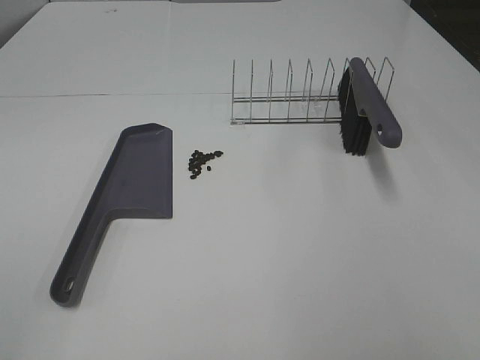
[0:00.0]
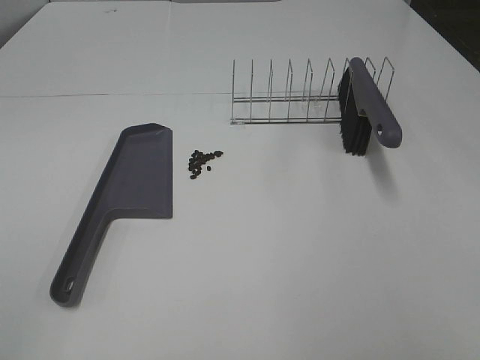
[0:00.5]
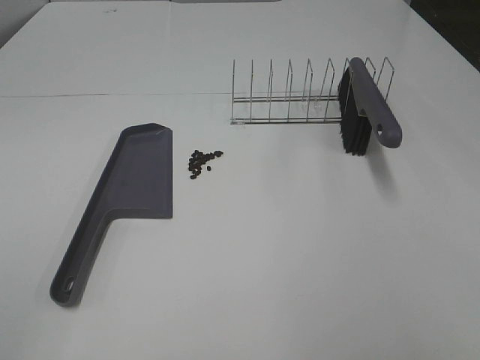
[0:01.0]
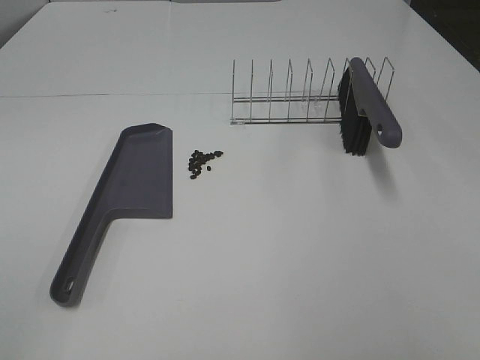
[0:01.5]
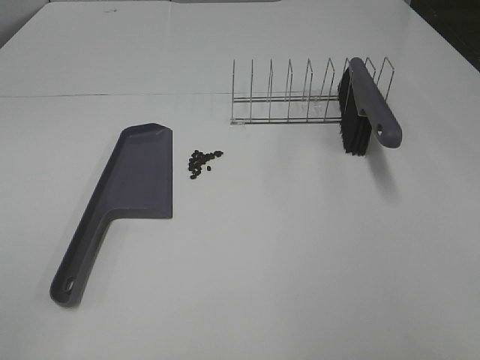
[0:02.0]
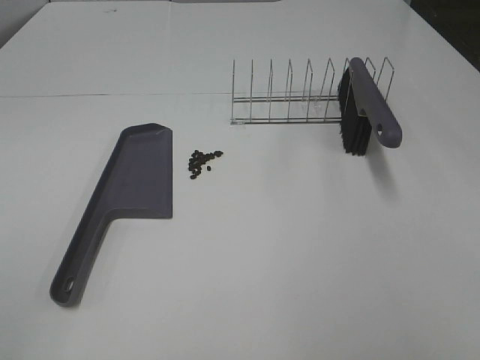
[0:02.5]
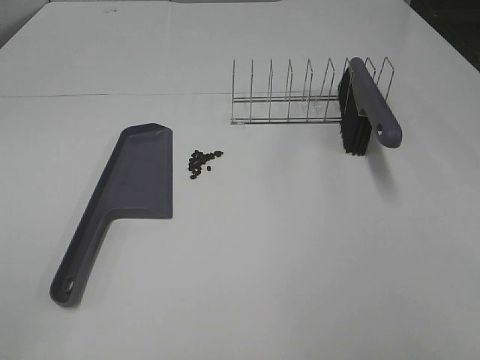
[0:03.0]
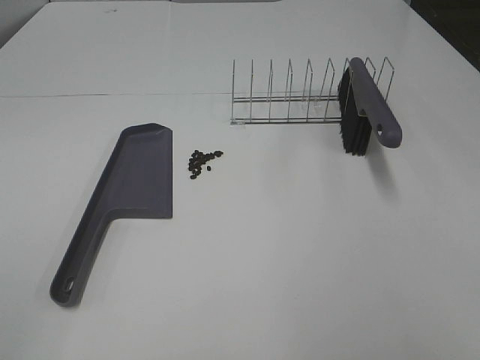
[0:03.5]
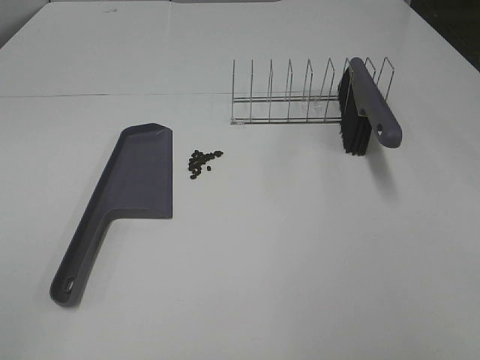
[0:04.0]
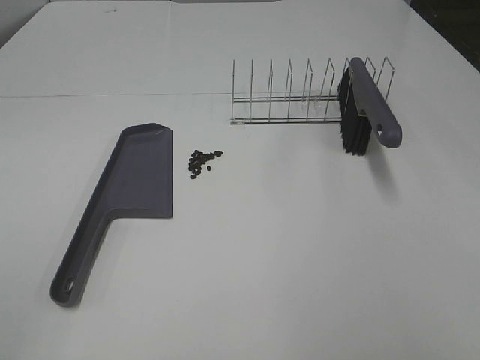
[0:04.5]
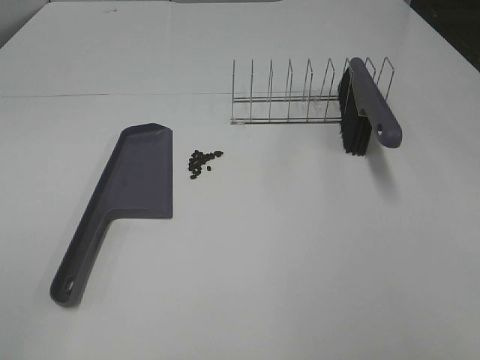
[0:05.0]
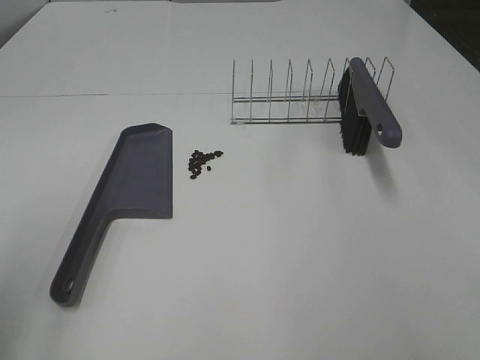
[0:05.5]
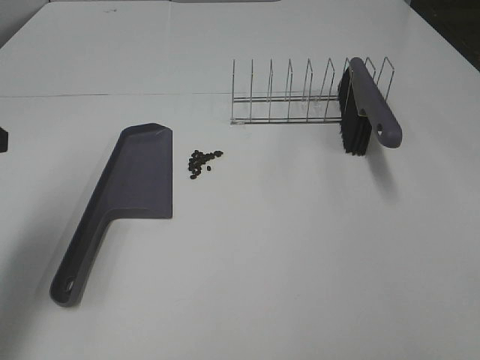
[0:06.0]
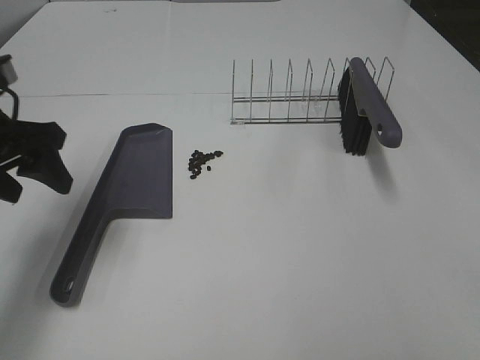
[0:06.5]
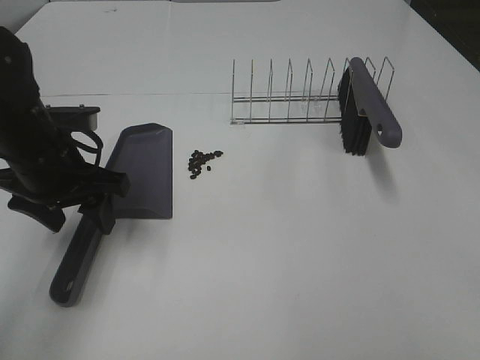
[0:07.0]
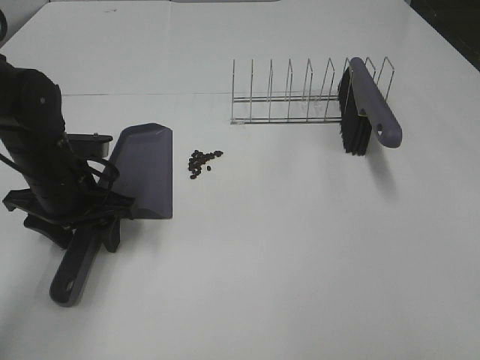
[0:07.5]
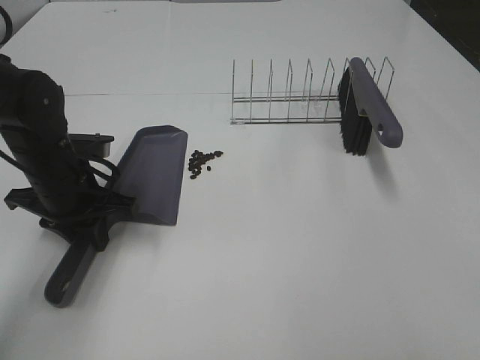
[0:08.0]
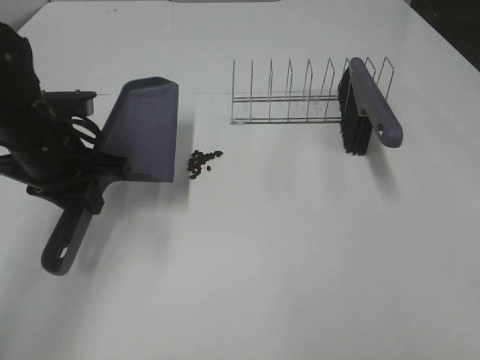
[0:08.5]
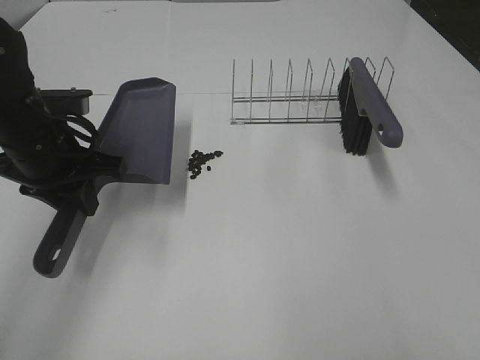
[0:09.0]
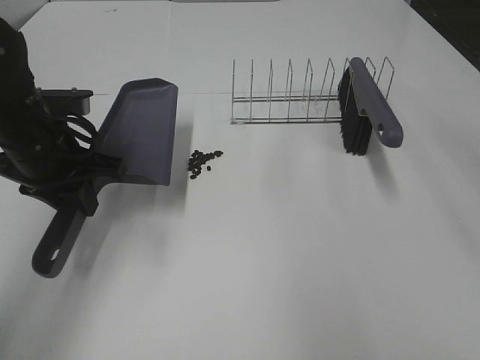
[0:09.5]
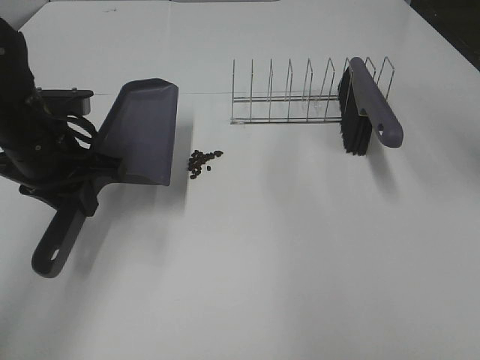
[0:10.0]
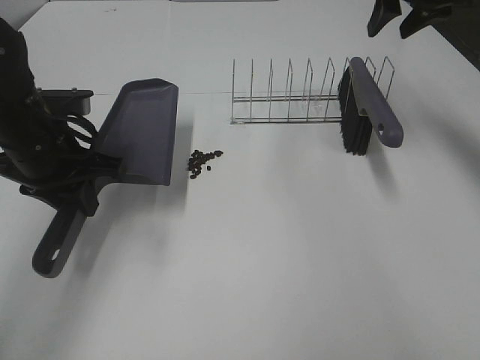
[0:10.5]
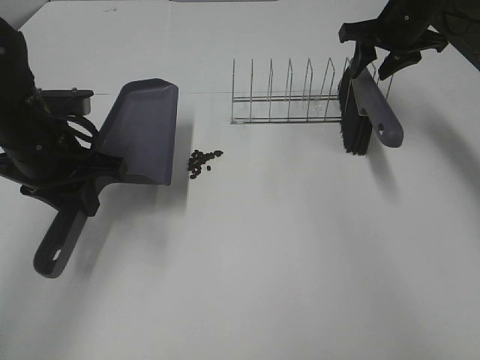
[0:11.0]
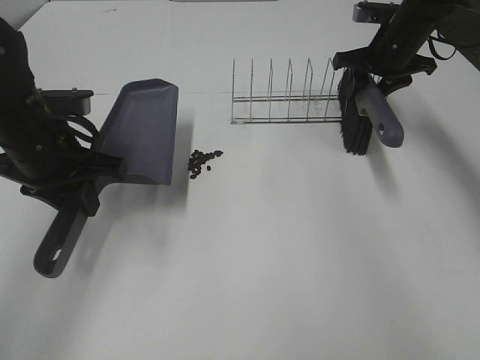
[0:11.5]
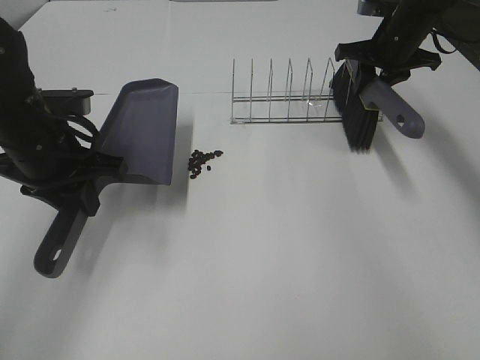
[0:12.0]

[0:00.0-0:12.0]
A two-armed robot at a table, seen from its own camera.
Task of the whole recording: Sweep Coffee Bean.
Step, 0:00.0 to 0:07.5: Left hand: grab the dustpan.
Step, 0:09.0 to 0:11.5: Right hand:grab the broom.
0:00.0 to 0:04.0: Both grippers stay about where they are.
0:04.0 to 0:06.0: The left gripper heads forward, covering roughly 25 cm.
0:06.0 to 0:08.0: The left gripper heads downward, forward and to the right, covering about 20 cm, and closes up.
0:08.0 to 0:10.0: The left gripper shifts some 5 cm upward; the right gripper shifts approximately 35 cm forward.
0:10.0 to 0:12.0: The right gripper heads downward and forward, covering about 25 cm, and closes.

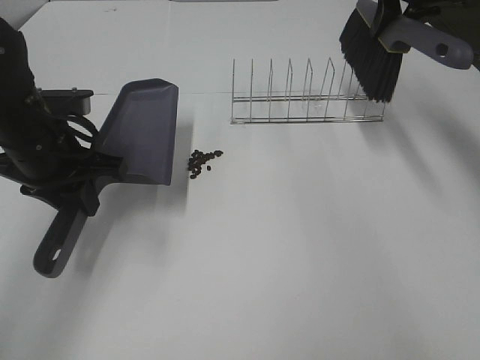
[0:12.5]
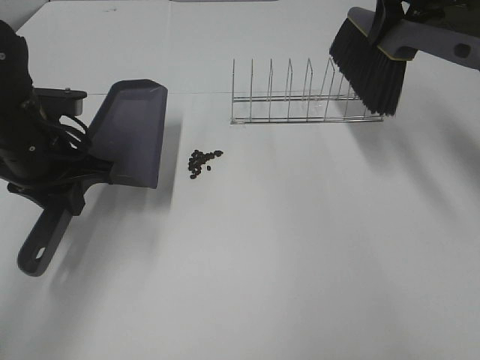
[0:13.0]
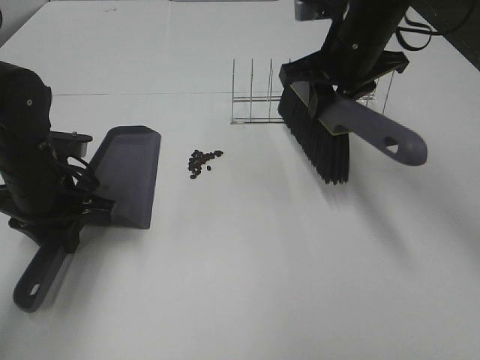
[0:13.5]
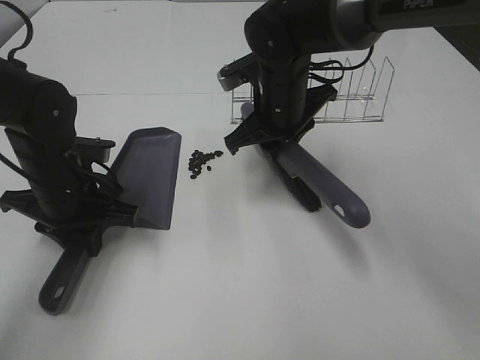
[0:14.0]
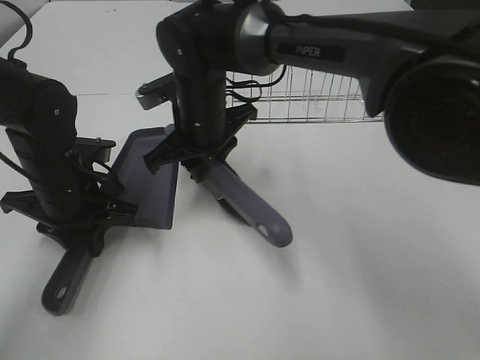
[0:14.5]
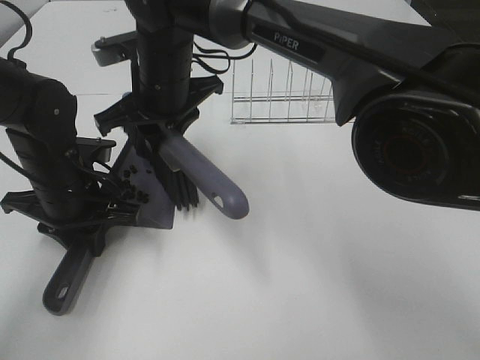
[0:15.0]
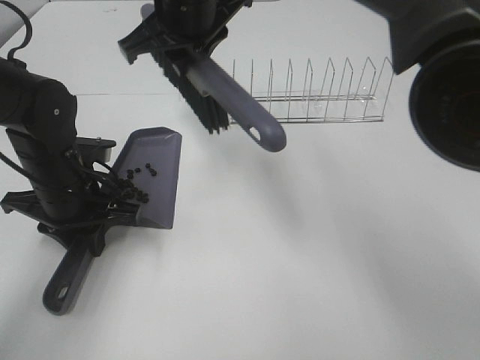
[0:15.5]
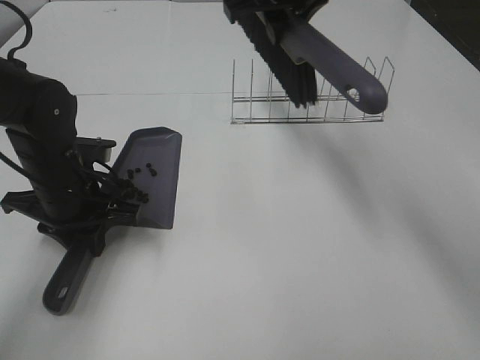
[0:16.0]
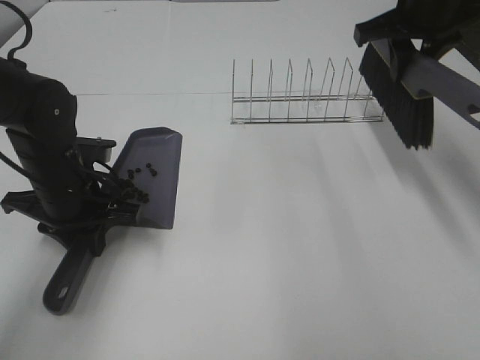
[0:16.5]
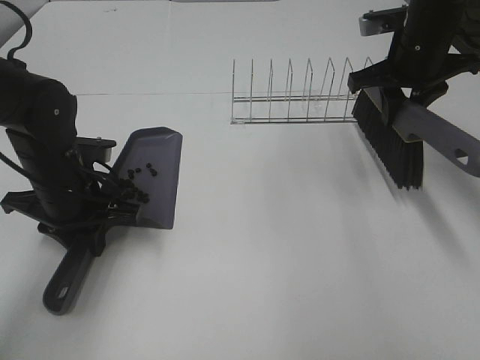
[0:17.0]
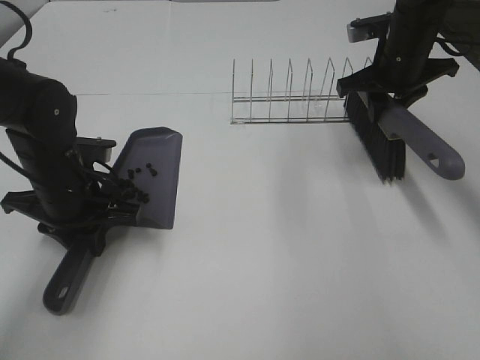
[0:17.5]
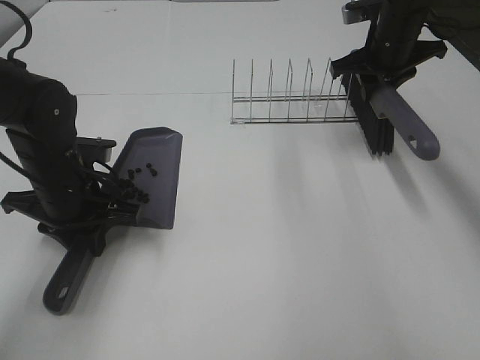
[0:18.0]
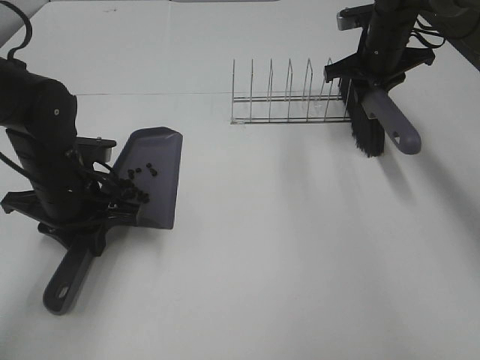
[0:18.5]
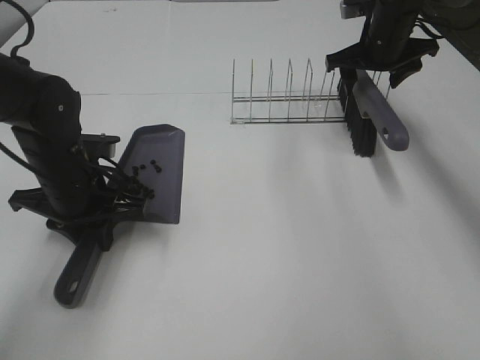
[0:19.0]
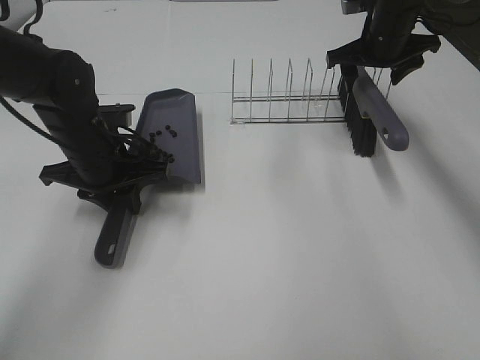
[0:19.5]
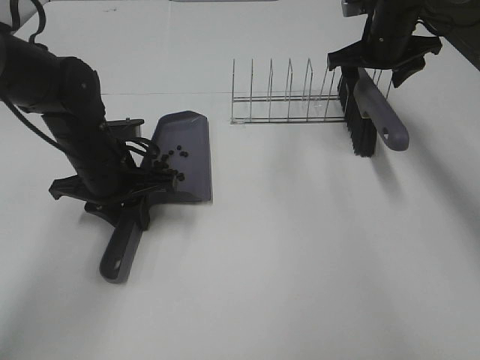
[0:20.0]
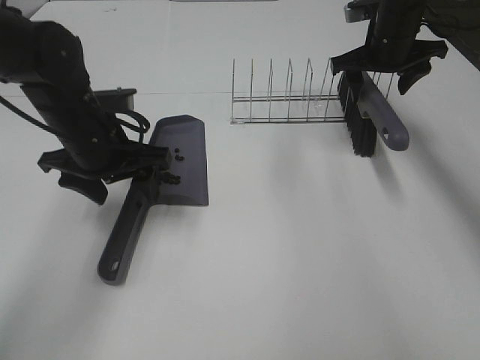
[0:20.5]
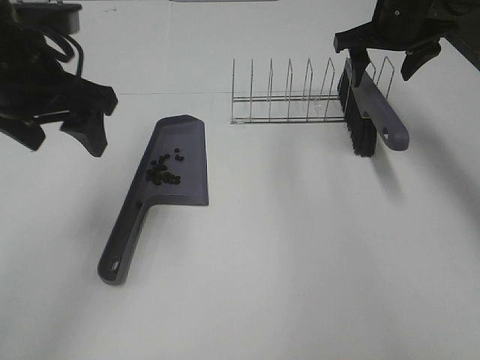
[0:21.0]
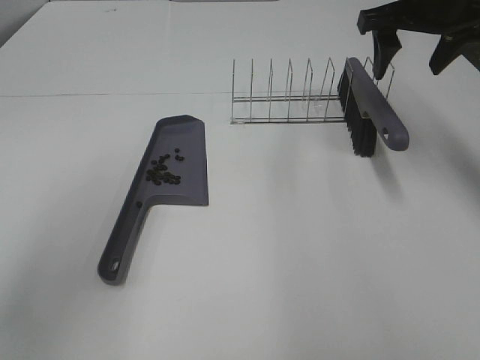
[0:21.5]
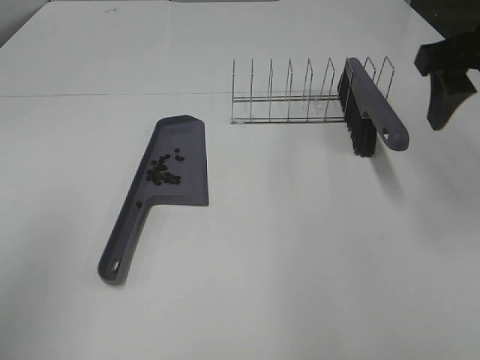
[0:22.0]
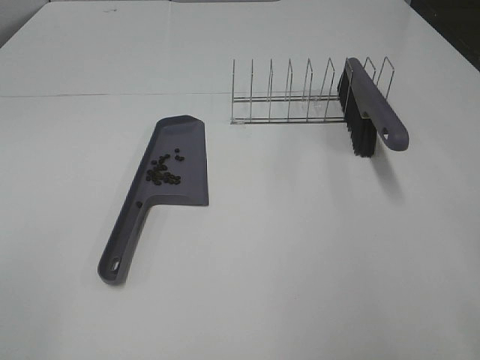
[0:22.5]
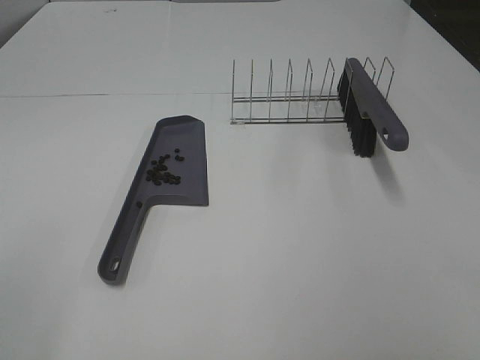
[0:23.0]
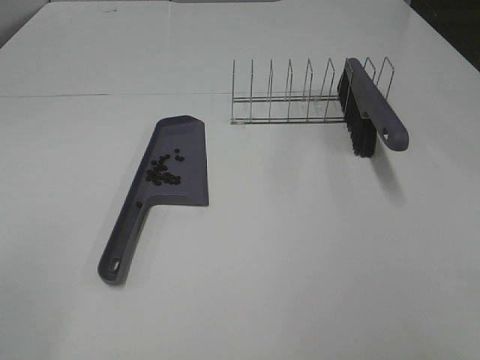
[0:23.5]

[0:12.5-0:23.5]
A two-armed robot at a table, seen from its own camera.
Task of the whole recording: Sweep Coffee Bean.
Step, 0:12.5 to 0:15.0: Right hand:sweep the coffee beans into the dustpan.
Step, 0:15.5 to 0:18.5: Right hand:place the broom on the rack.
Step, 0:19.0 to 0:20.5: Left hand:place the dustpan on the table.
0:12.5 to 0:14.5: The right gripper goes about 35 cm to the left and downward. The left gripper is displaced downward by about 5 cm.
0:14.5 to 0:16.0: The right gripper goes roughly 20 cm upward and to the right.
0:16.0 to 0:18.0: The right gripper moves to the right, downward and forward, some 20 cm.
0:18.0 to 0:20.0: The right gripper opens its fingers.
0:20.0 to 0:21.5: The right gripper travels upward and backward by about 15 cm. Meanwhile the left gripper heads upward, backward and to the left, covering about 30 cm, and opens its fingers.
0:21.5 to 0:23.5: The left gripper moves backward and to the left, about 20 cm. Meanwhile the right gripper shifts some 40 cm backward.

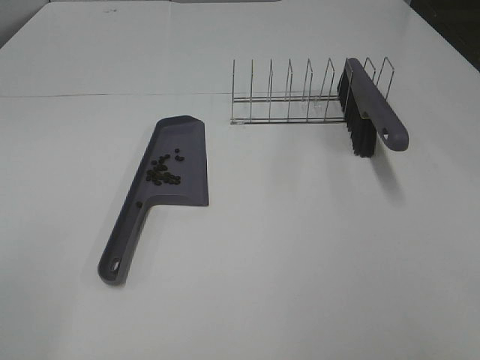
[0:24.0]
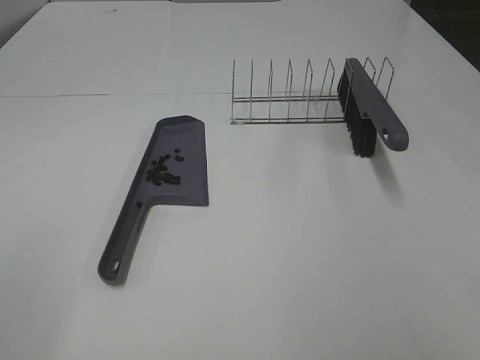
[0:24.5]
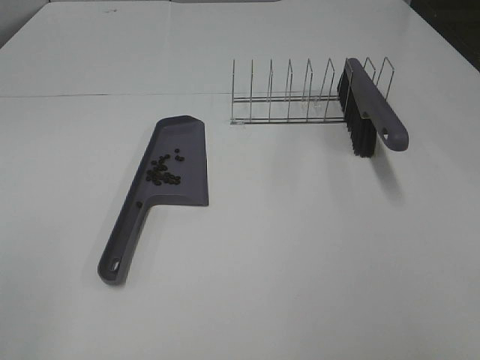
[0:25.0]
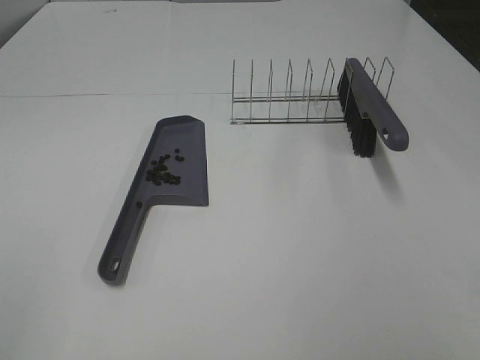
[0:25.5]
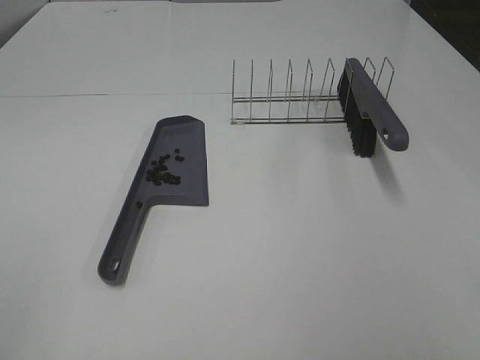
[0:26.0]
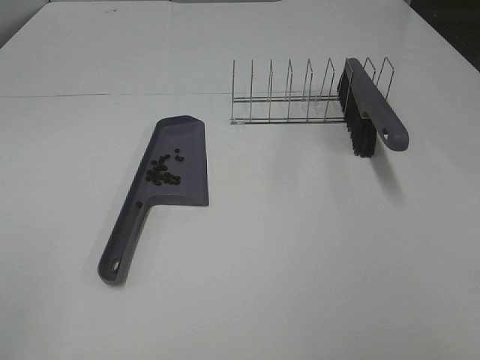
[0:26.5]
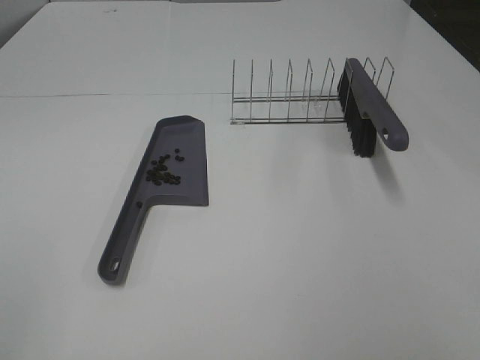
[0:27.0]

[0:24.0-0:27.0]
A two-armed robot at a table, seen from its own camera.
Task of the whole recording: Sweep Coffee Bean.
0:25.5 to 0:27.0: Both grippers stay put.
